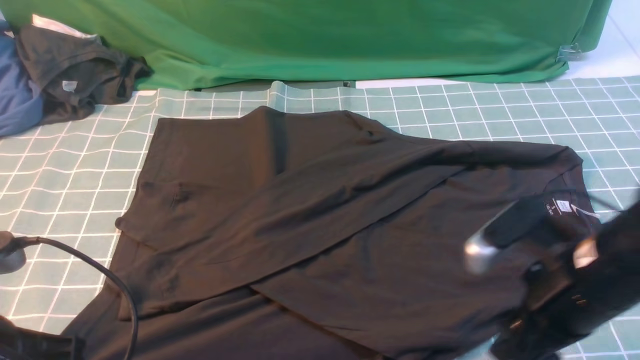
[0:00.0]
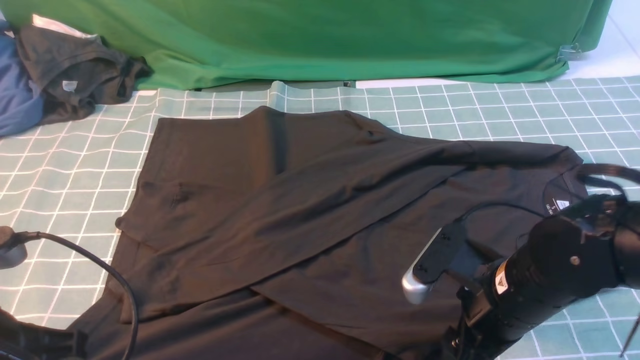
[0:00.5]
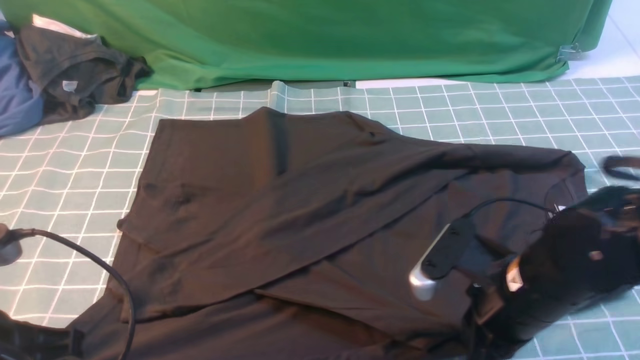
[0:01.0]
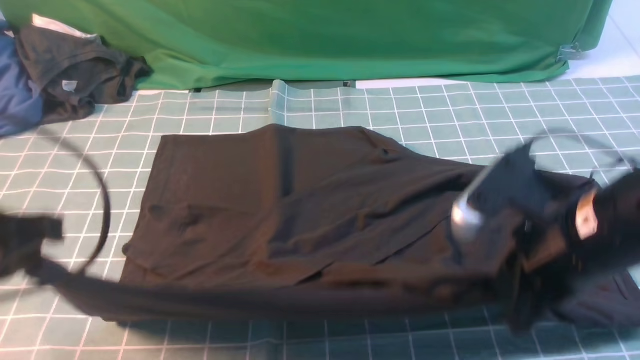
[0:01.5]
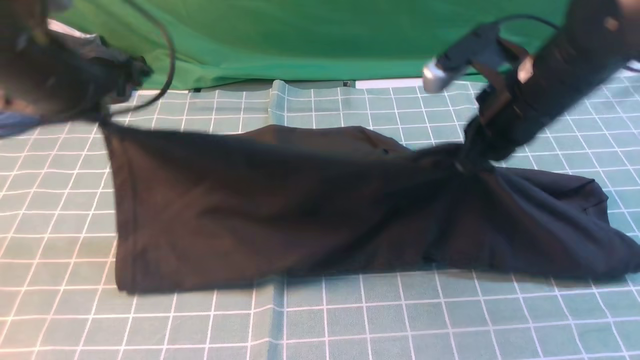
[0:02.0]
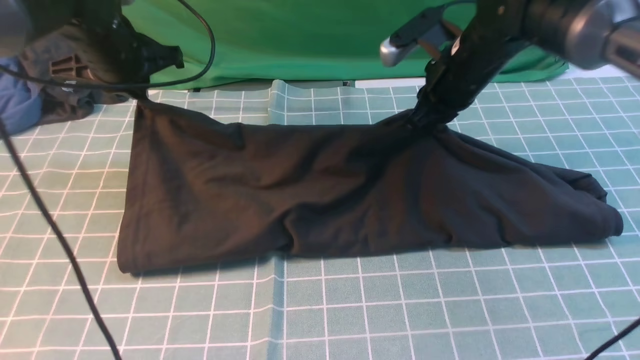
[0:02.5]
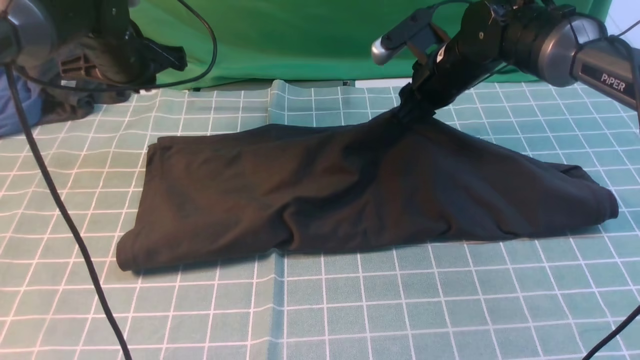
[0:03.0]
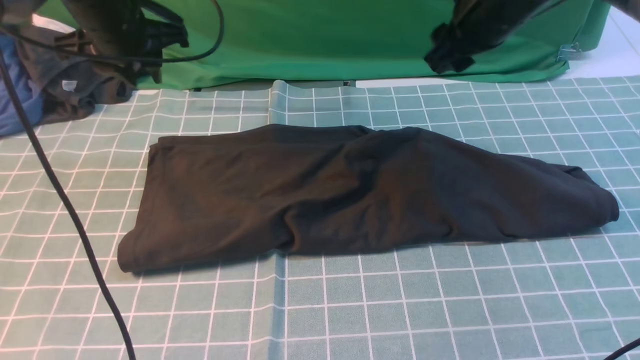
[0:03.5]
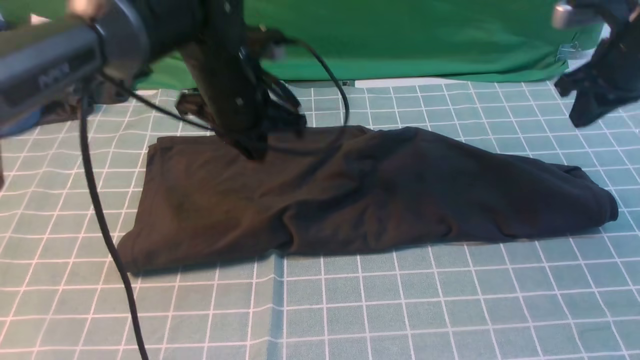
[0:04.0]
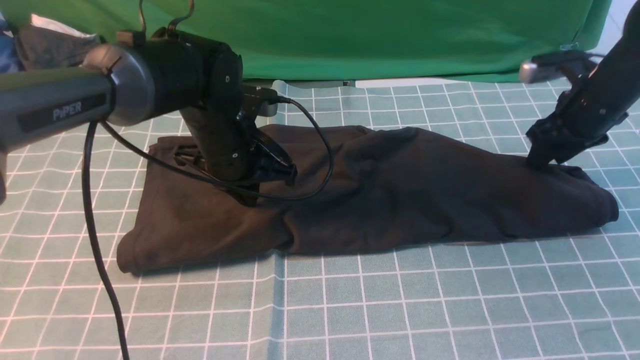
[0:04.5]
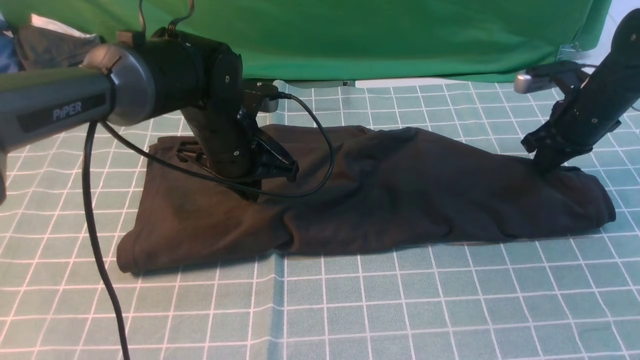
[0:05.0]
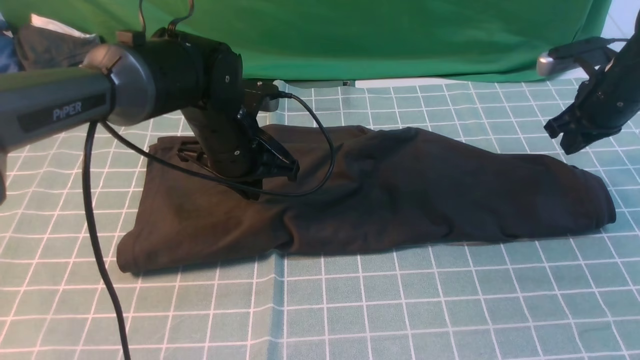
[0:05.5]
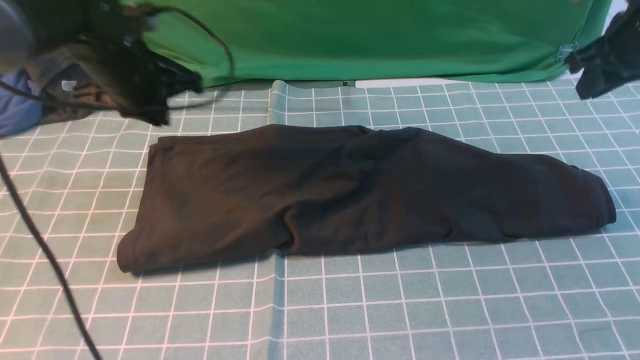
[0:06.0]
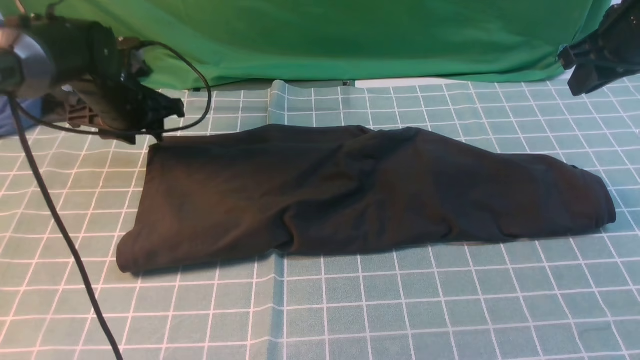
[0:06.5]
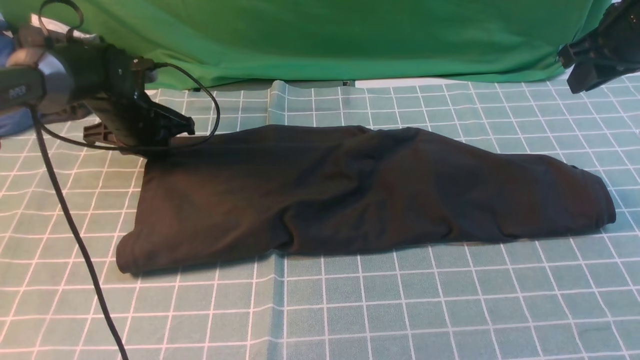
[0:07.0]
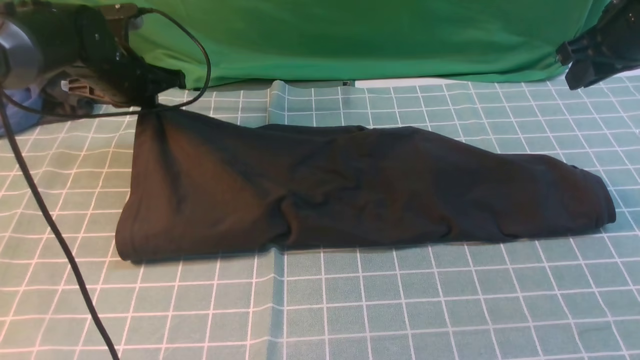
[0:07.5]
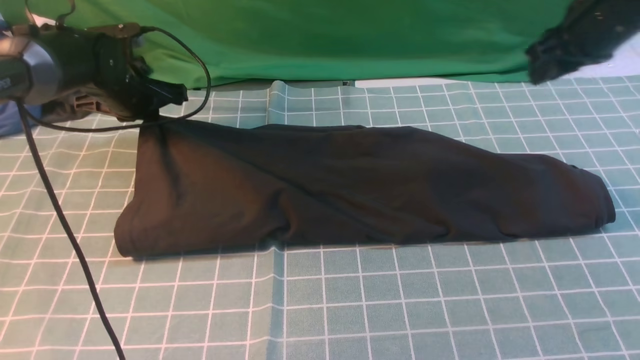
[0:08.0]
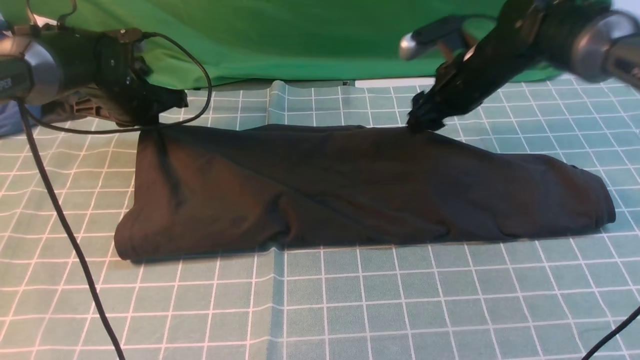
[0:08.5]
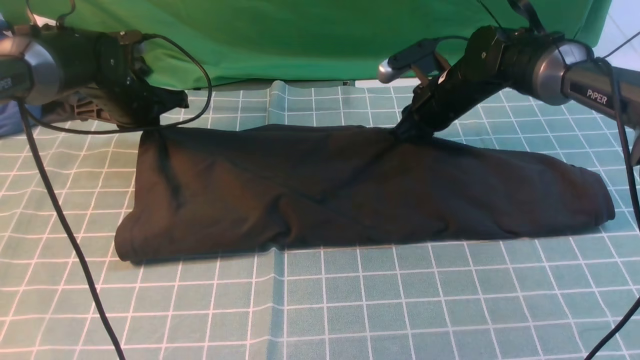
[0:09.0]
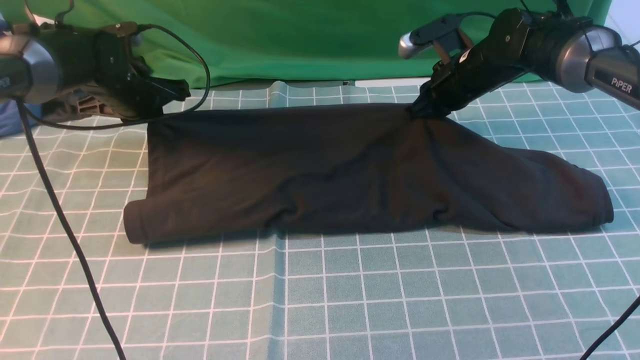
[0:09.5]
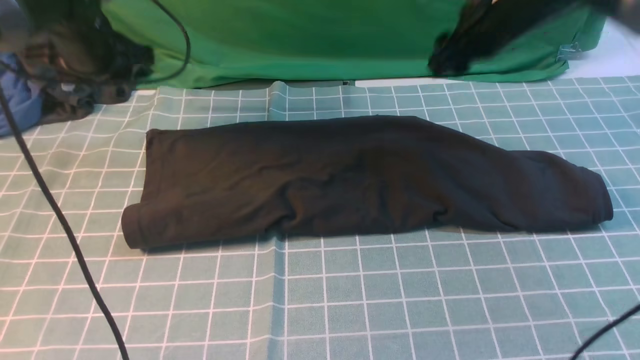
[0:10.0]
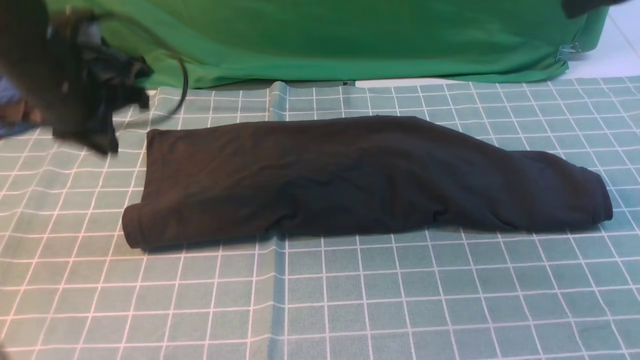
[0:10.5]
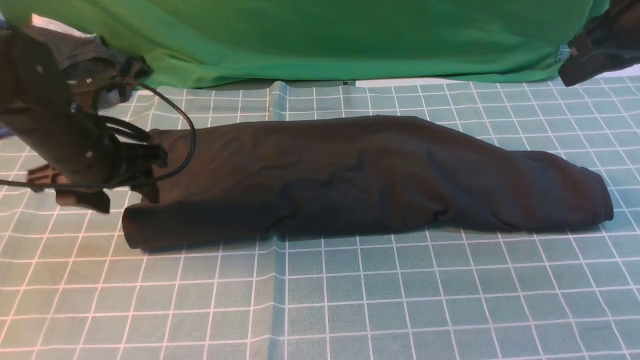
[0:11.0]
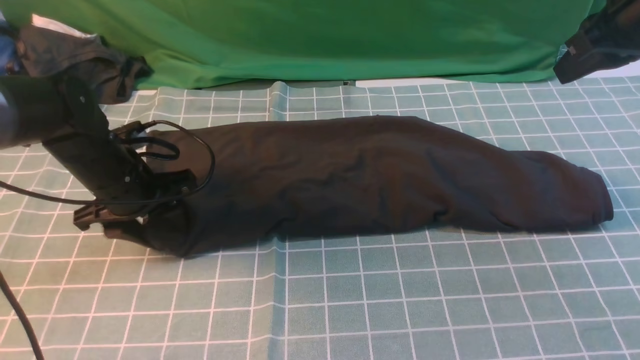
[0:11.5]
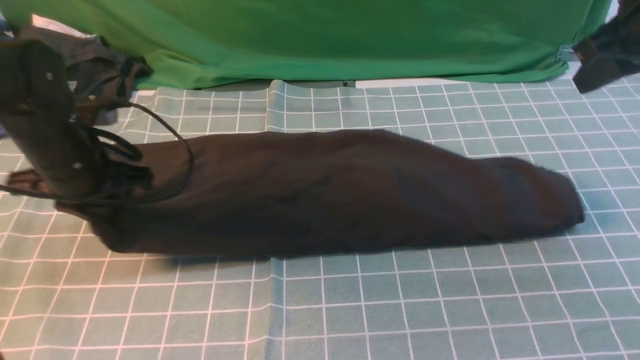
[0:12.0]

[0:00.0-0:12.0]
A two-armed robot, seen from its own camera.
Step, 0:01.0 to 0:03.0: use both arms to drag the lower edge of the fabric forward and fold it over the upper edge.
0:00.0 to 0:02.0: The left gripper moves forward, about 20 cm. Meanwhile the right gripper goes roughly 15 cm forward and upward, and closes its fingers.
0:02.0 to 0:04.0: The right gripper is displaced to the right and forward by some 15 cm, and opens, then closes again. The left gripper shifts about 15 cm to the right, downward and forward.
0:04.0 to 0:06.0: The right gripper goes downward and returns, some 10 cm each way, and opens, then closes again. The left gripper shifts about 10 cm to the left.
0:06.0 to 0:08.0: The left gripper travels downward and forward by some 10 cm, and opens, then closes once more, while the right gripper moves to the left, roughly 5 cm, and opens.
0:08.0 to 0:10.0: The right gripper goes some 5 cm to the left, and goes downward and returns, roughly 15 cm each way. Meanwhile the left gripper goes some 10 cm upward, and opens up.
0:10.0 to 0:12.0: The left gripper is displaced backward and downward by approximately 15 cm, and closes. The right gripper travels backward and to the right by some 15 cm, and closes its fingers.

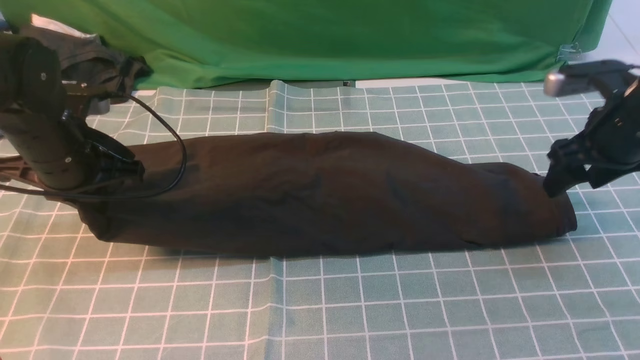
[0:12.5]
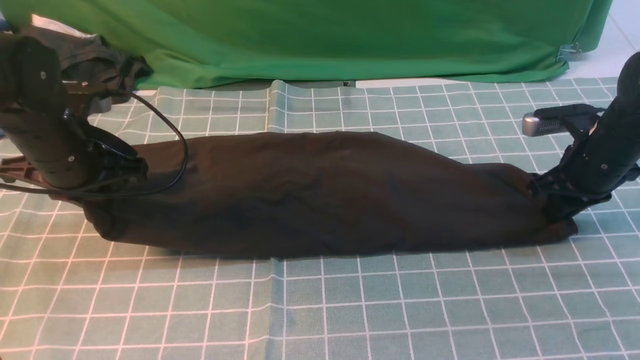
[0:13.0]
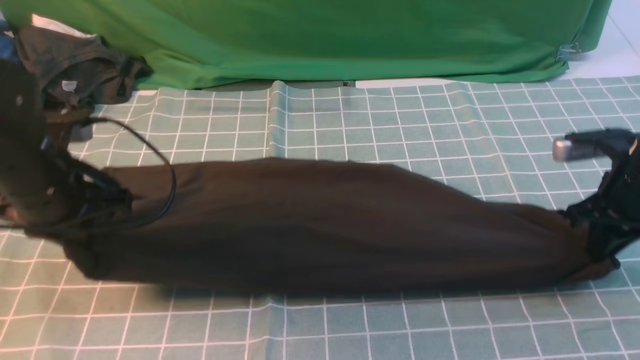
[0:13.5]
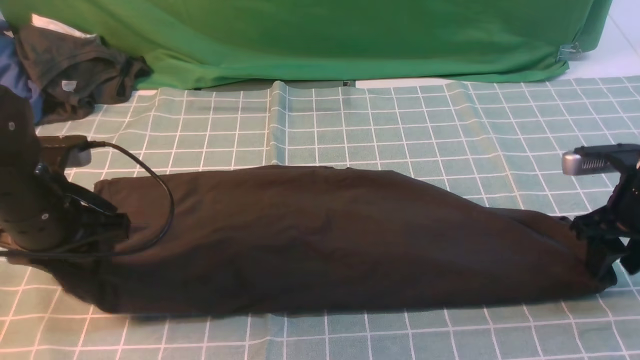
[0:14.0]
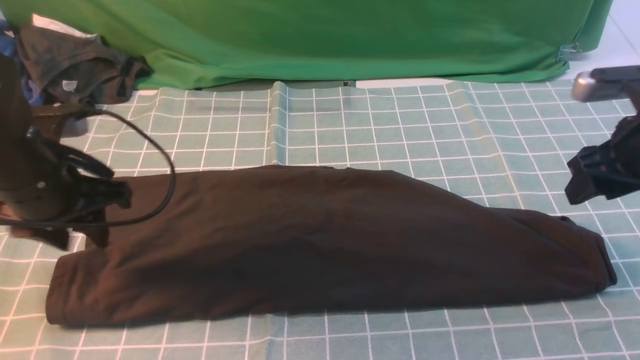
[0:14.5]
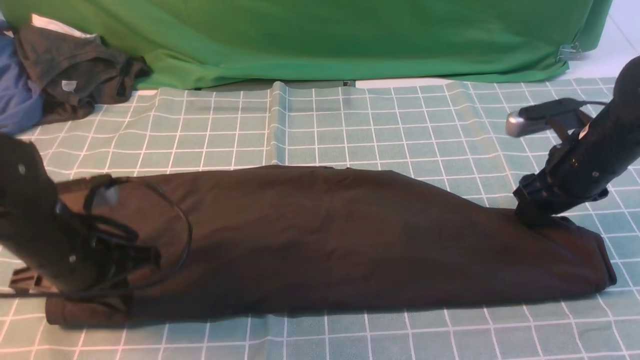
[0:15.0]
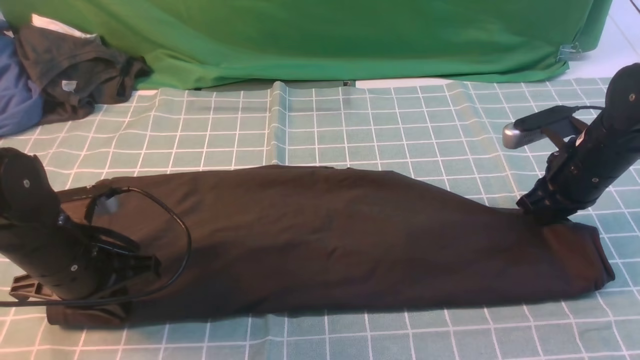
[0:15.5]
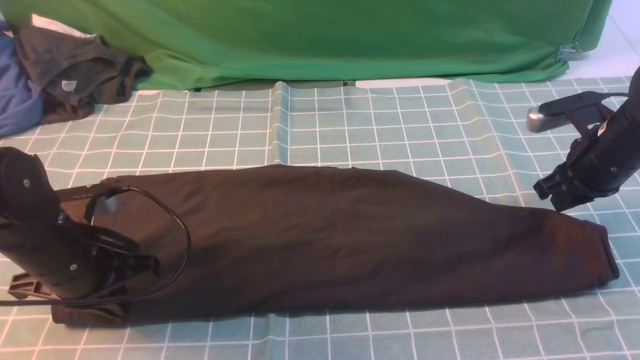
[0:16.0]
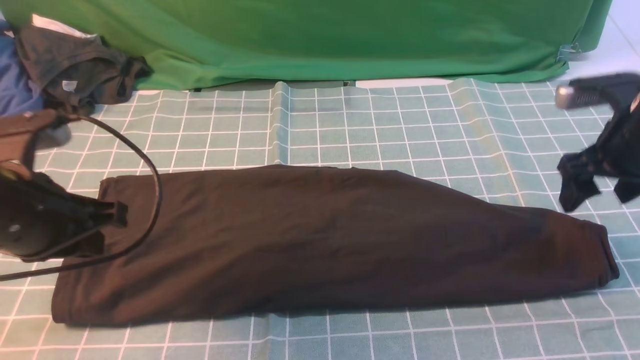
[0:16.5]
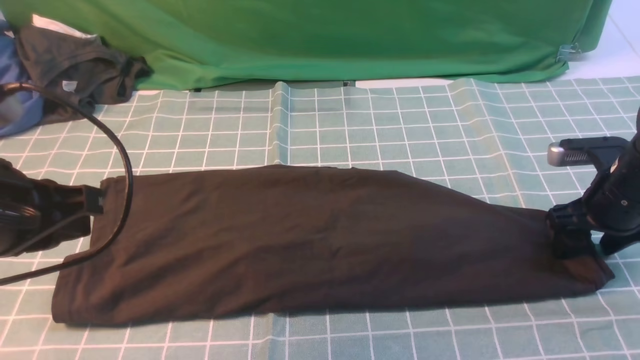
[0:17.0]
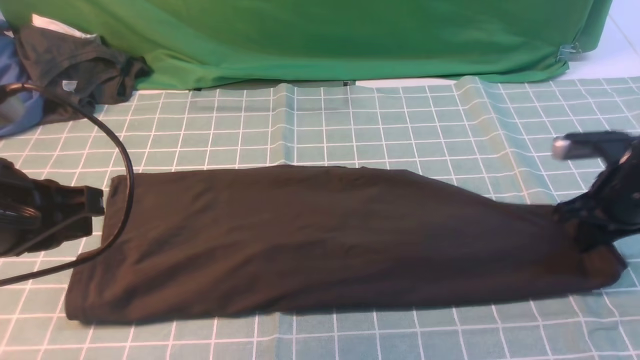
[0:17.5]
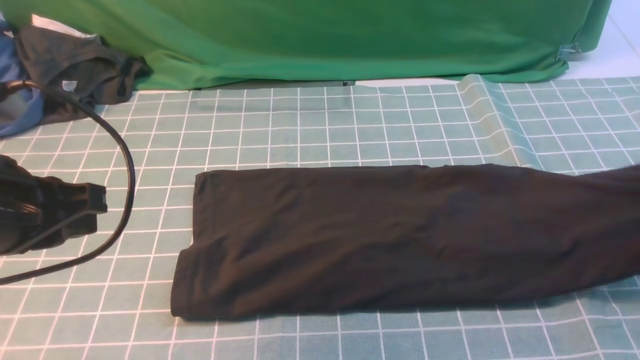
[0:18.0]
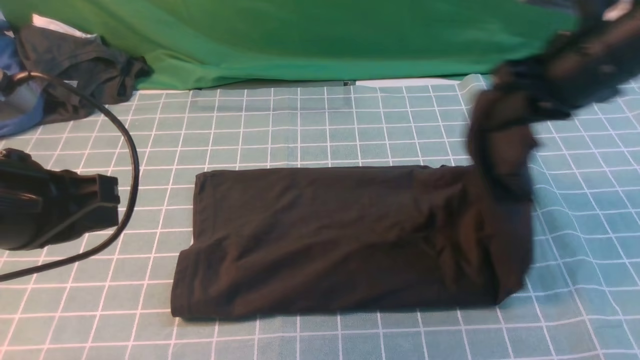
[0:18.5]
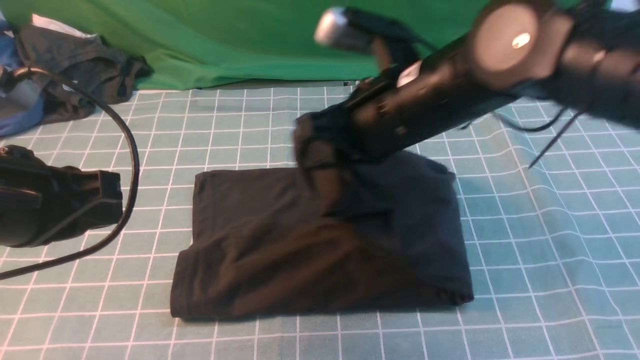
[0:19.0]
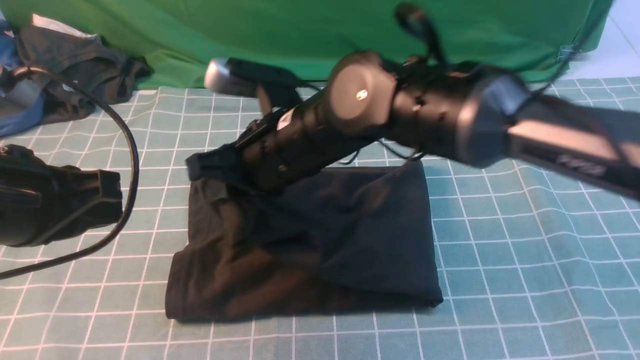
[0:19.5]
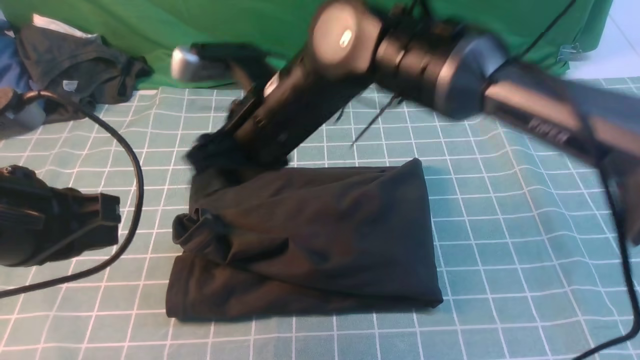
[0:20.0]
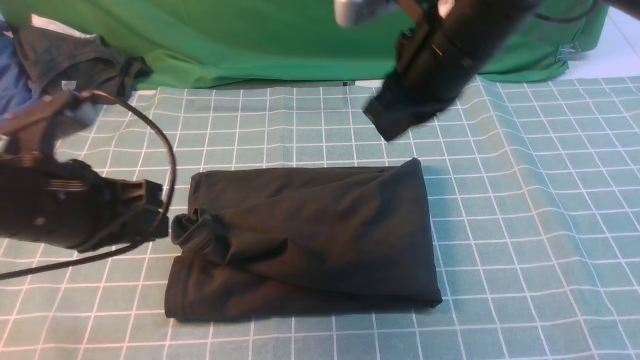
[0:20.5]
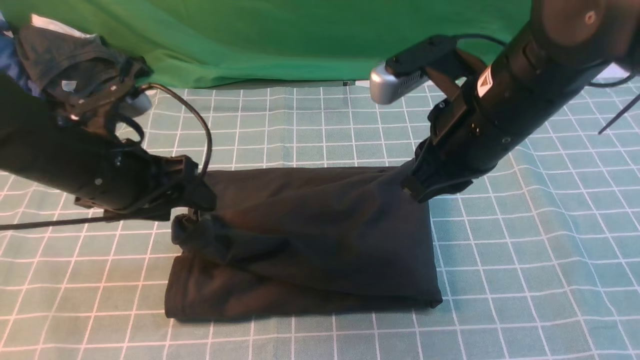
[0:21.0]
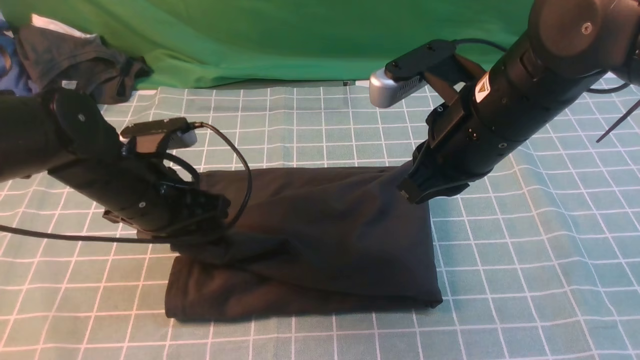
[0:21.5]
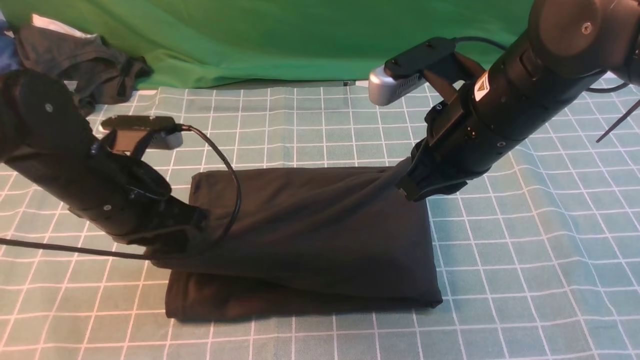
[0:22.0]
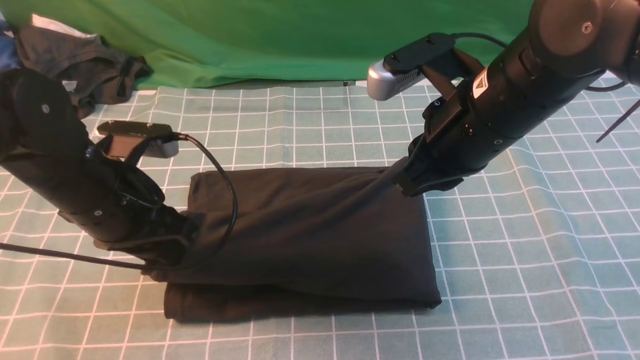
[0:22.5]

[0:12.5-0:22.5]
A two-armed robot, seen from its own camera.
Step, 0:12.5 to 0:17.0: use the right arm to clamp the right edge of the fabric.
Step, 0:18.0 to 0:20.0: use the right arm to drag the right edge of the fabric to the left and folds it over the left edge.
0:12.5 to 0:14.5: The right gripper closes, then opens again; the left gripper travels backward by approximately 5 cm, and opens.
0:14.5 to 0:16.5: The right gripper closes, then reopens. The left gripper goes approximately 5 cm backward, travels downward and back again, about 5 cm each way, and closes up.
0:16.5 to 0:18.5: The right gripper travels upward and to the left by roughly 15 cm, and closes its fingers, while the left gripper shifts by approximately 5 cm.
0:18.5 to 0:20.5: The left gripper moves roughly 5 cm. The right gripper shifts roughly 10 cm to the left, and opens, then closes again.
0:20.5 to 0:22.5: The left gripper opens, then closes once more, while the right gripper shifts by about 5 cm.
